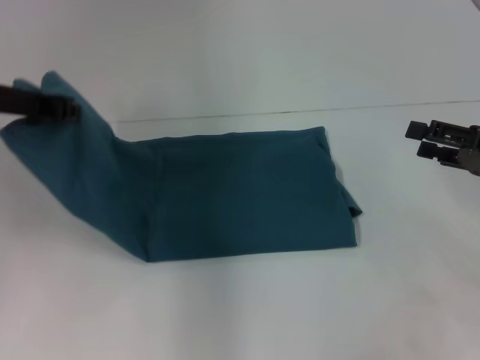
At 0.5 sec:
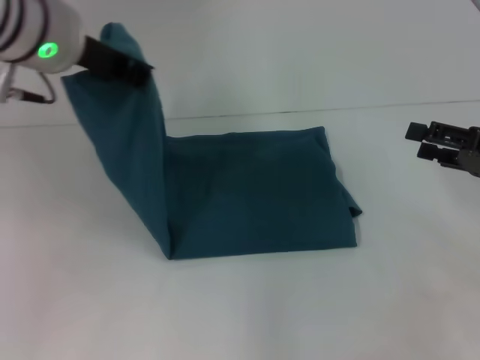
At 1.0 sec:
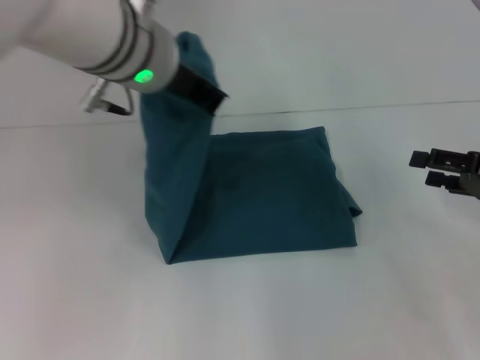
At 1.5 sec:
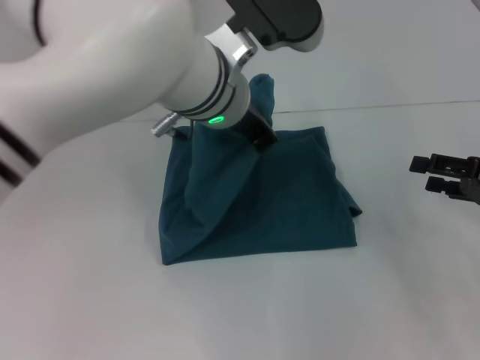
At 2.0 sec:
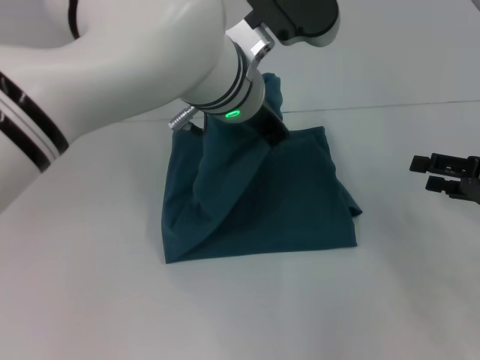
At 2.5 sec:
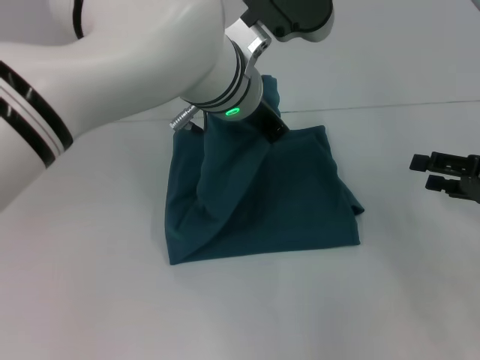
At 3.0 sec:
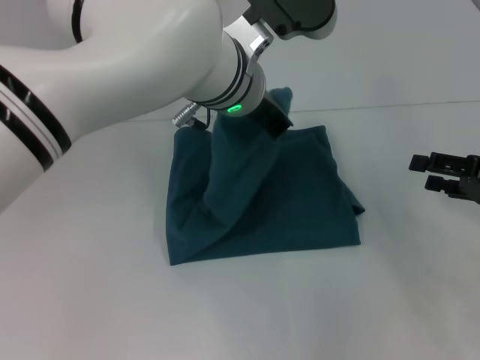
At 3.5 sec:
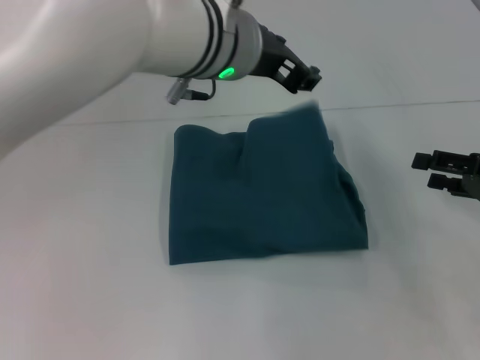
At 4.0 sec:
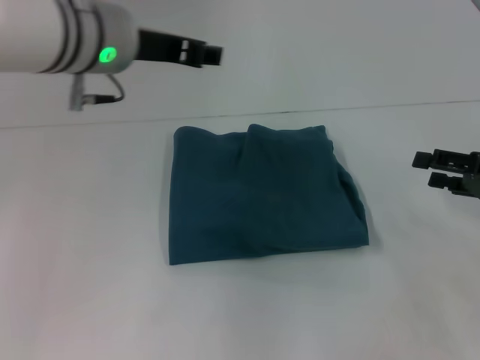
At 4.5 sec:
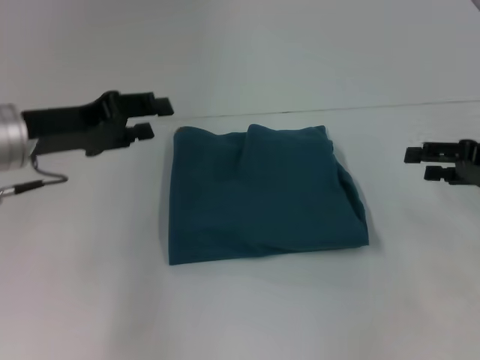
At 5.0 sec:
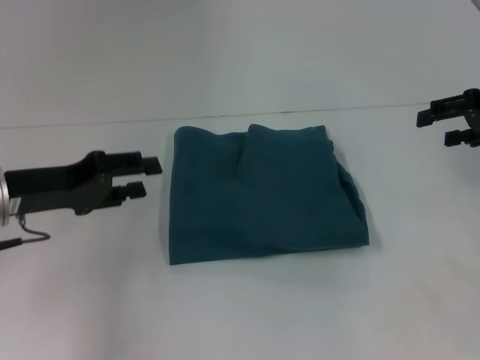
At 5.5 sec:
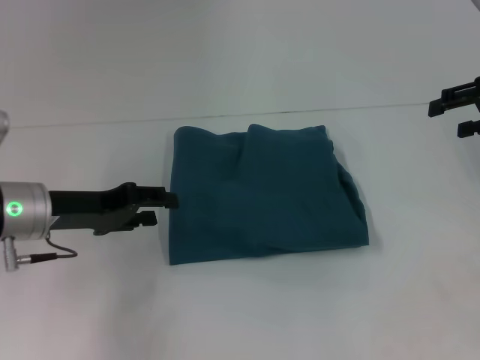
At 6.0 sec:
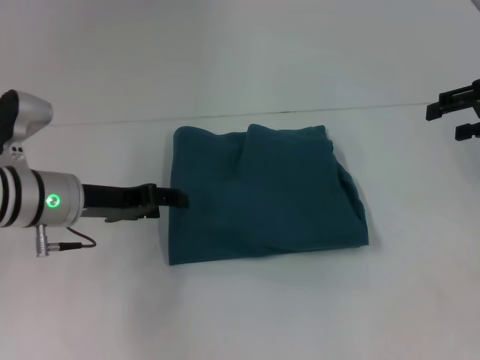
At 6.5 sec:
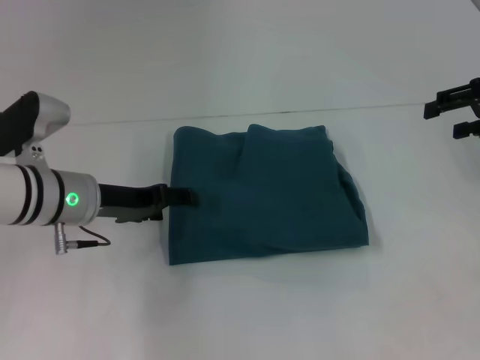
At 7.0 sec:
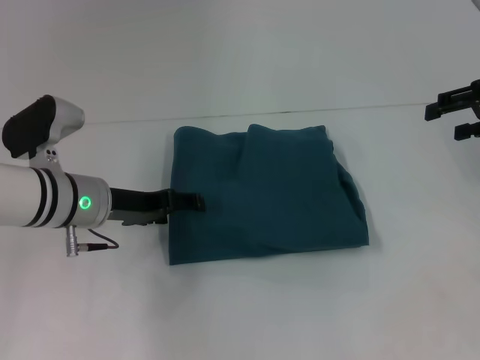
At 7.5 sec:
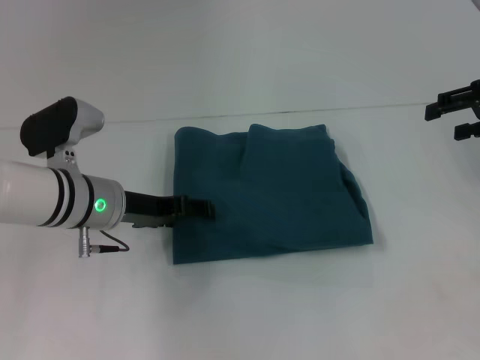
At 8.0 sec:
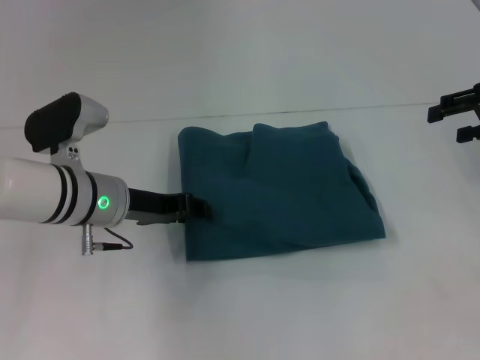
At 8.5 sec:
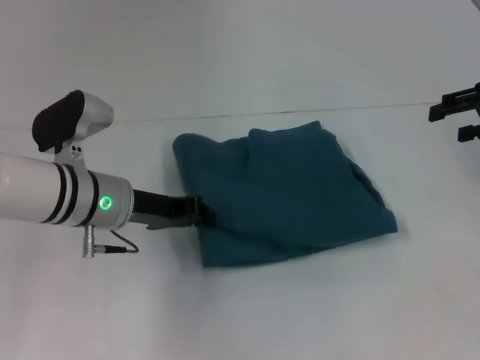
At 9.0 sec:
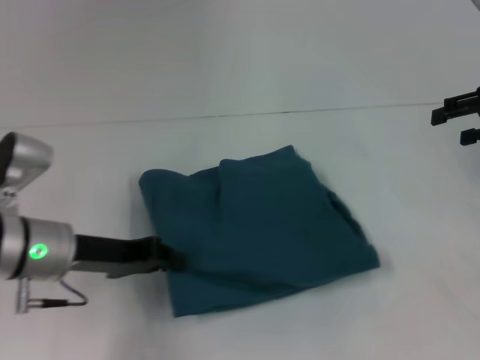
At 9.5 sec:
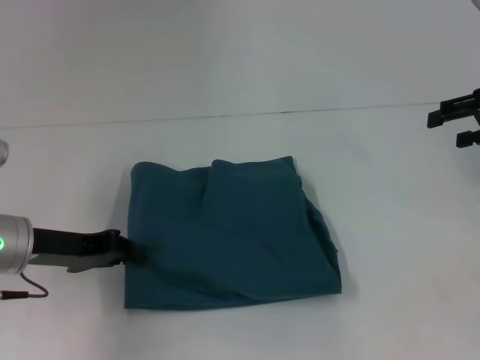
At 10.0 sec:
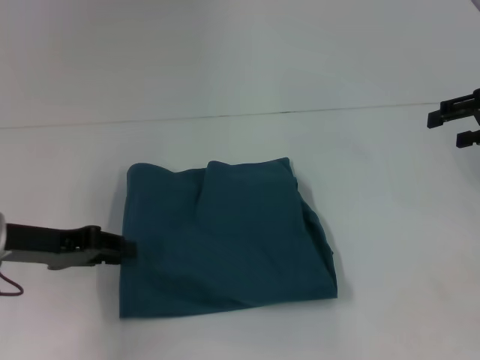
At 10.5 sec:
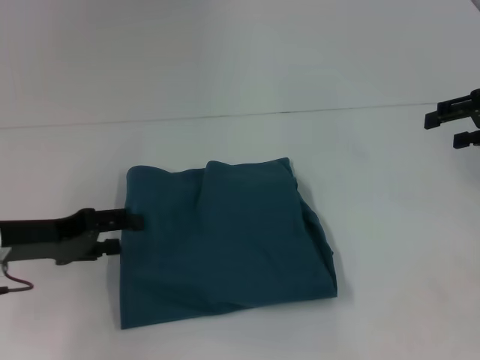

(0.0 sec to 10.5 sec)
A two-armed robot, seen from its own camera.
Step, 0.0 sec - 3.5 sec: Fold the clothes to the left.
0.0 sec - 2.0 sec: The left gripper is displaced to the right by approximately 25 cm.
2.0 sec - 4.0 sec: The left gripper is displaced to the left by some 10 cm, and opens up.
4.0 sec - 6.5 sec: The left gripper is displaced downward and to the left by about 20 cm. Meanwhile the right gripper goes roughly 15 cm upward and forward.
6.5 sec - 8.5 sec: The left gripper closes.
8.5 sec - 10.5 sec: The left gripper shifts about 15 cm to the left and backward.

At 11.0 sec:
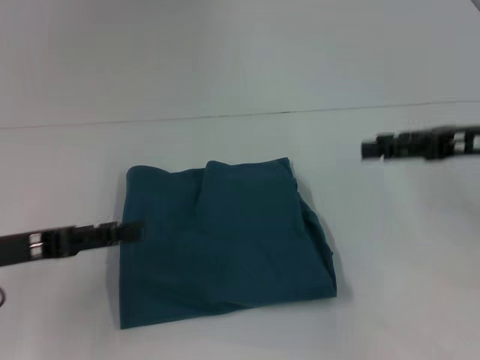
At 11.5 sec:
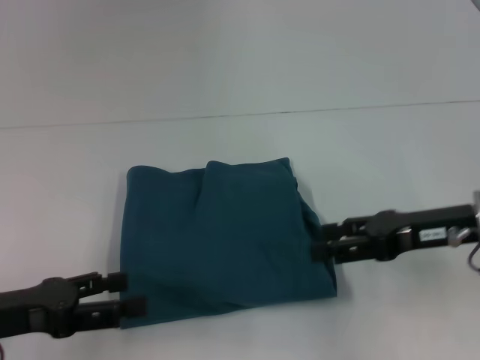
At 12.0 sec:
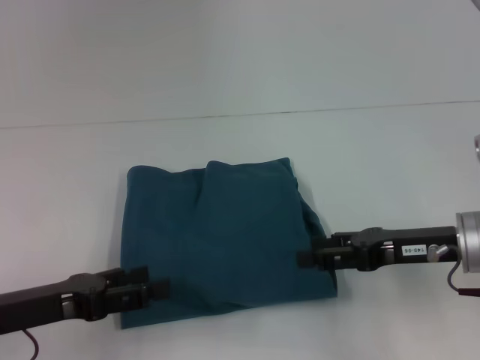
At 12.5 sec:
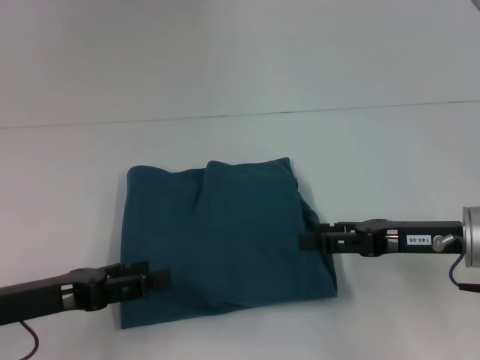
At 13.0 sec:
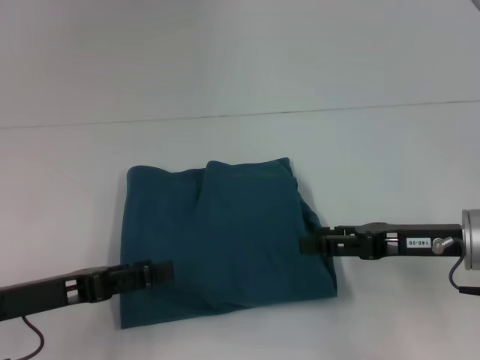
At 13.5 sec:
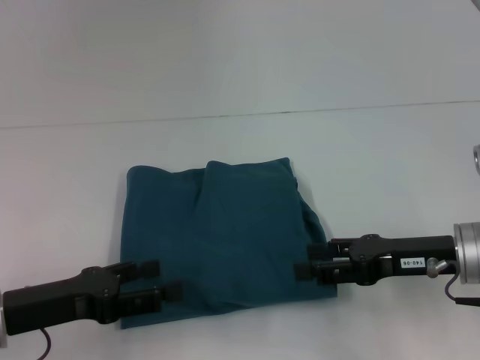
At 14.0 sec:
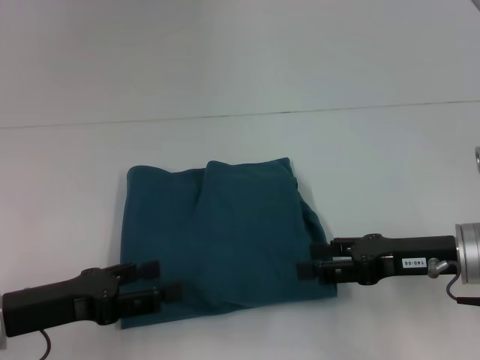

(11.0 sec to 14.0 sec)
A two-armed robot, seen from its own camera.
11.0 sec - 12.5 sec: The right gripper travels downward and to the left by about 10 cm; the left gripper changes place by some 5 cm.
12.5 sec - 14.0 sec: The grippers make only small movements.

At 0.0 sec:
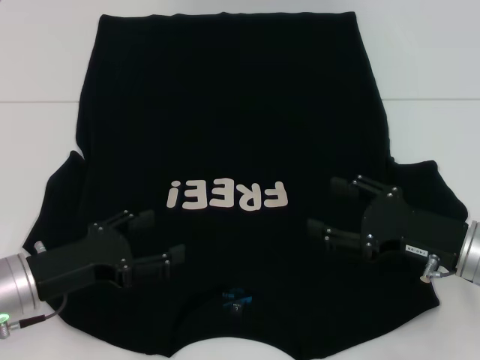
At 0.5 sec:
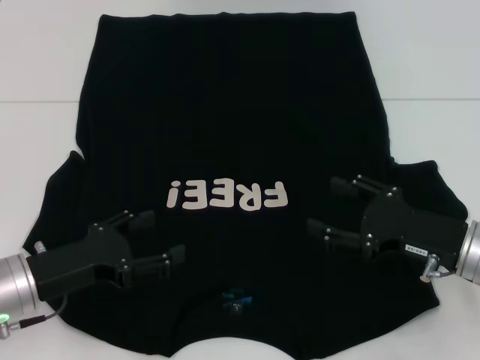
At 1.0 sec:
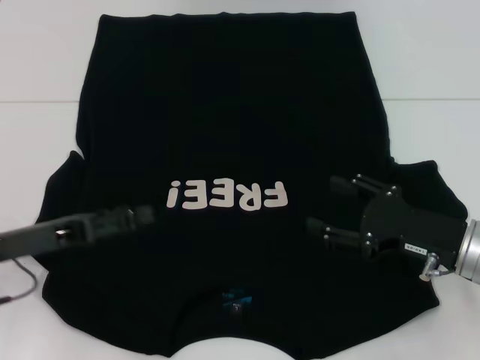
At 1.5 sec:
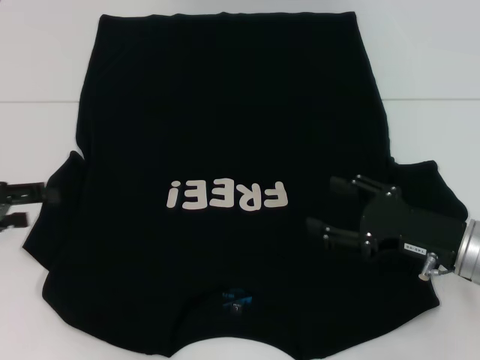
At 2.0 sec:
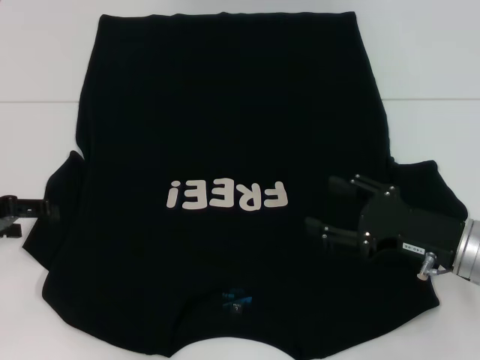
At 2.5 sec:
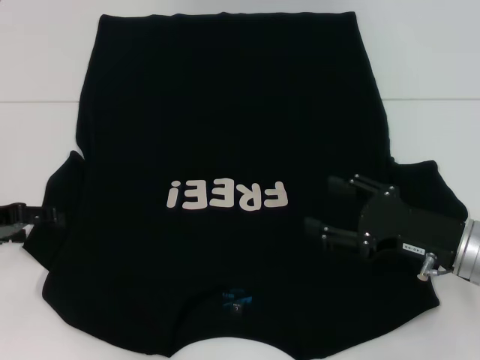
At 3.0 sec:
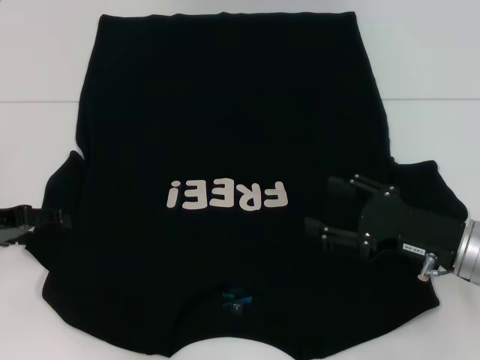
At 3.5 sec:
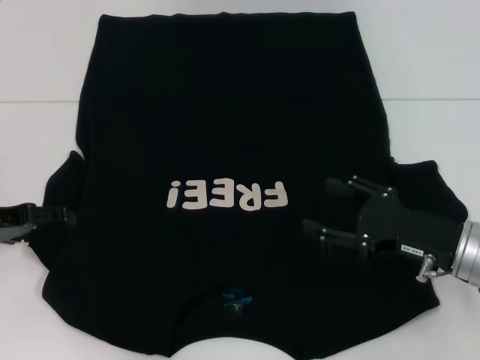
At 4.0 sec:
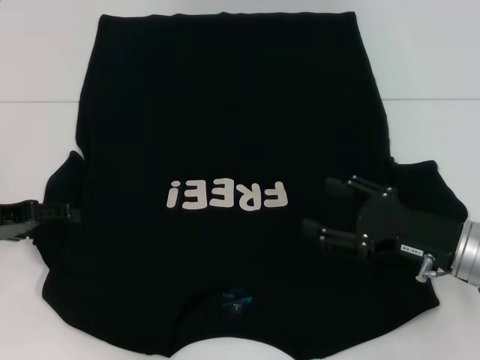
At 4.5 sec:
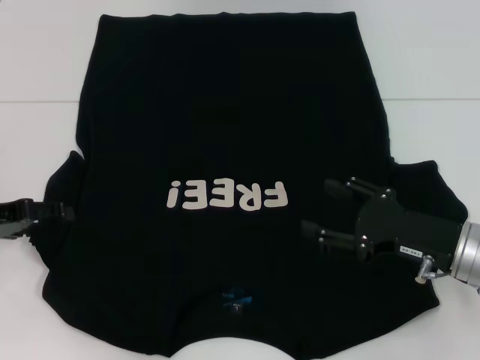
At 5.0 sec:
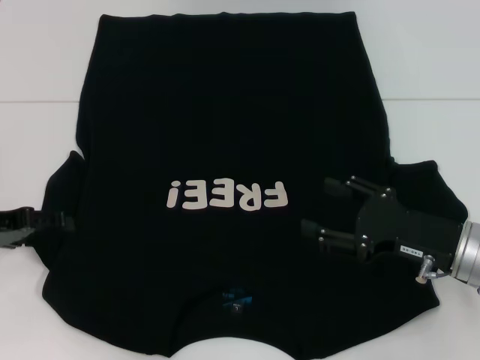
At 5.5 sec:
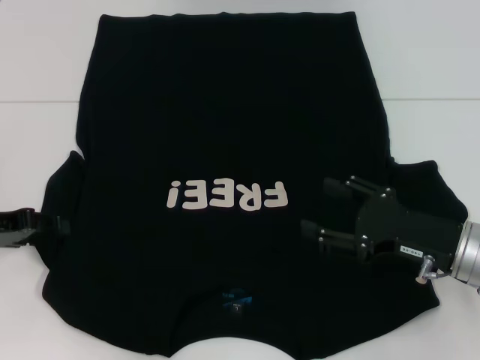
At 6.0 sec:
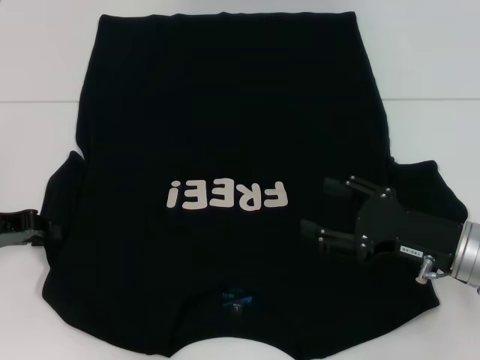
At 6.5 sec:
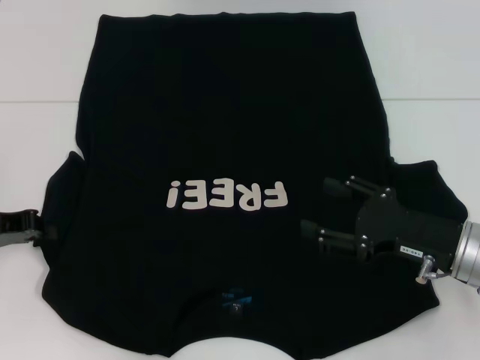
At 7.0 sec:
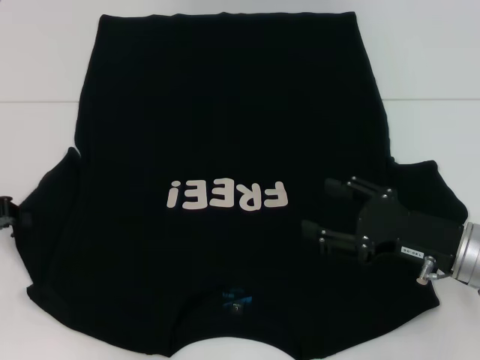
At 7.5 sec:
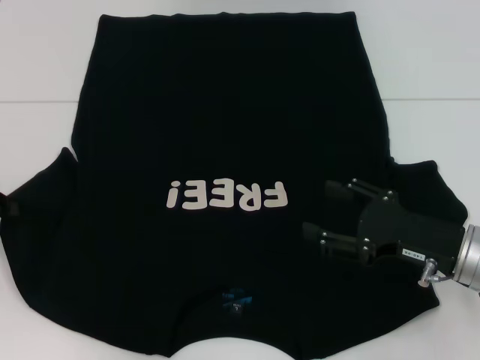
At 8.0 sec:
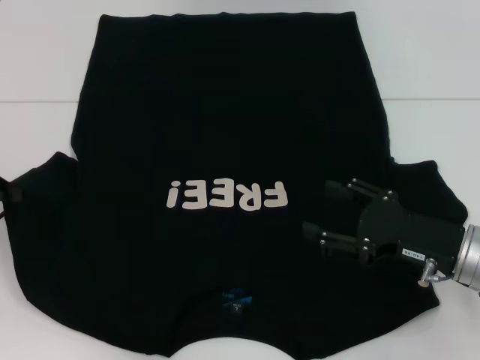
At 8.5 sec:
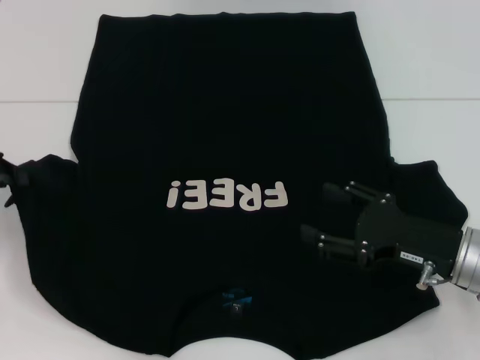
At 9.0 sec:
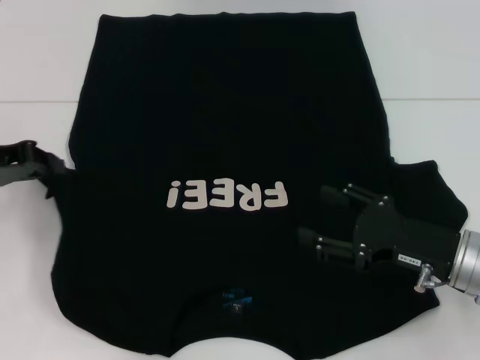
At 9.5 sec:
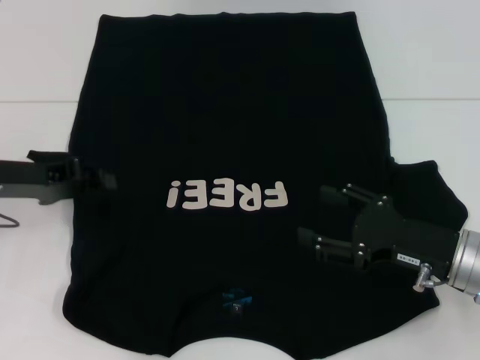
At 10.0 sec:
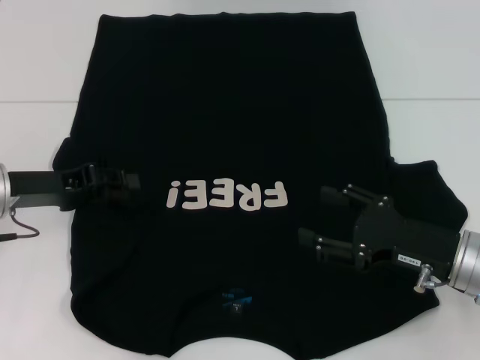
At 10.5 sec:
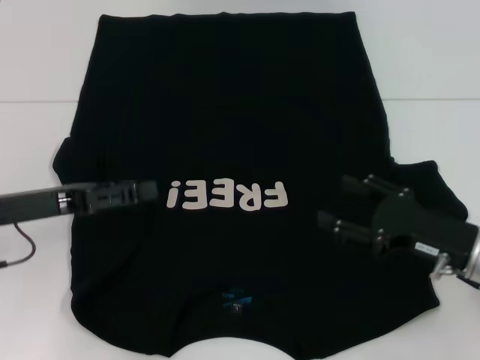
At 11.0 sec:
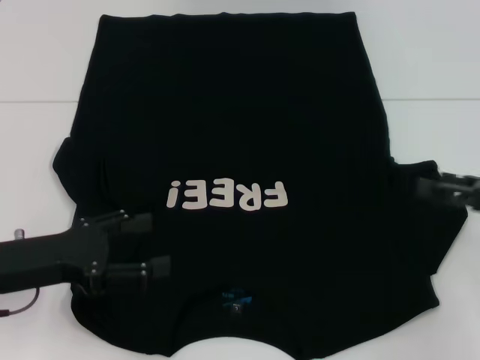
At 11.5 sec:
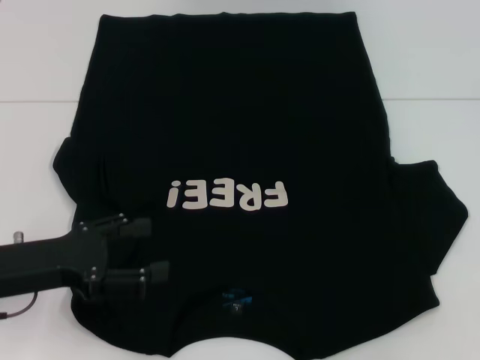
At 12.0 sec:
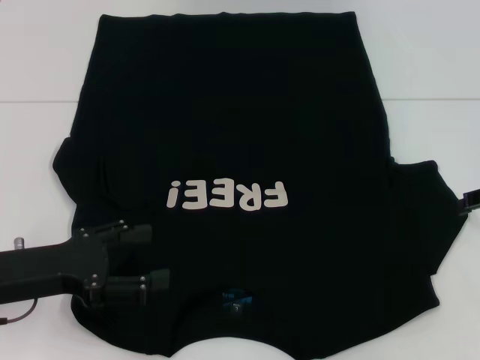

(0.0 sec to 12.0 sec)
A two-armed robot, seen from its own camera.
Step, 0.0 sec - 10.0 sec: Fold the bottom left sleeve with your left hand.
0.0 sec - 2.0 sec: The left gripper heads to the left, upward and forward, covering some 15 cm.
2.0 sec - 4.0 sec: There are only small adjustments of the grippers.
4.0 sec - 6.0 sec: The left gripper closes.
6.0 sec - 8.0 sec: The left gripper changes place by about 5 cm, and closes up.
8.0 sec - 10.0 sec: The left gripper is displaced to the right by approximately 10 cm.
10.0 sec - 12.0 sec: The left gripper heads backward, covering some 10 cm, and opens its fingers. The right gripper heads to the right, upward and forward, covering roughly 15 cm.
